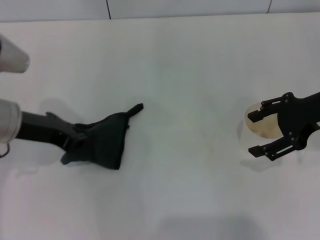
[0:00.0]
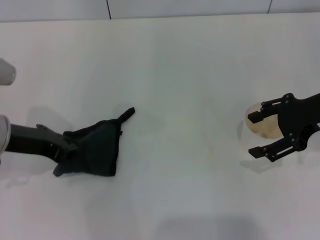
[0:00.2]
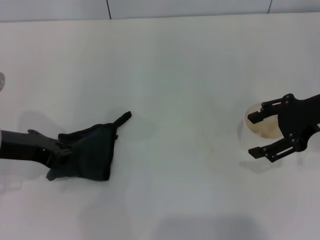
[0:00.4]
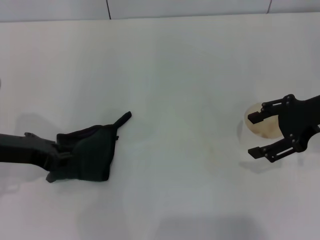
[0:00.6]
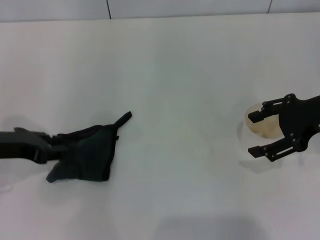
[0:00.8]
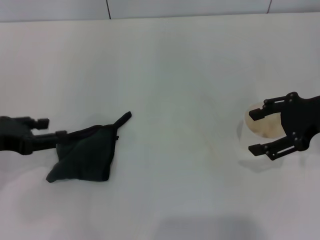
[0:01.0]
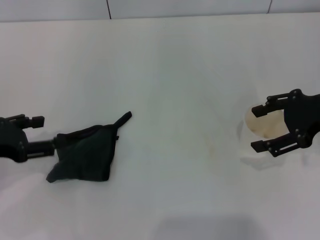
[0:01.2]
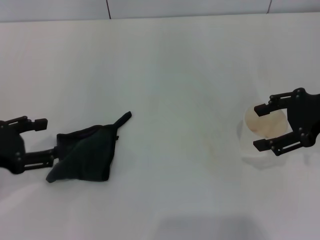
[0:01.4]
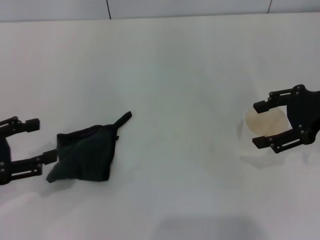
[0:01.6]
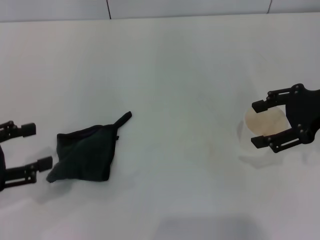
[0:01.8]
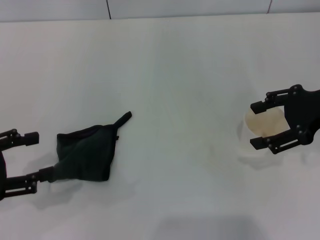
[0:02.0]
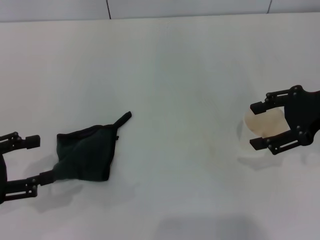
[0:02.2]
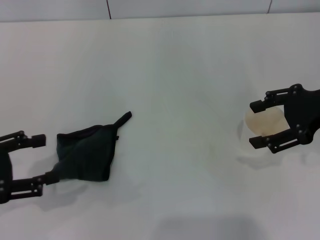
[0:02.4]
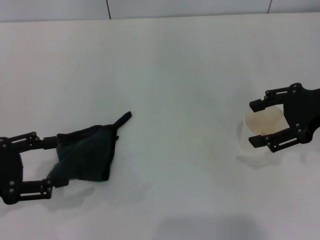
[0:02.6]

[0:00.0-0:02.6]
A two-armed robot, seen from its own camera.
Step, 0:00.2 to 0:01.0: Place the rag on the table with the left gripper.
0:00.0 to 0:01.2: The left gripper moves to the left and backward, some 10 cm, and opens up.

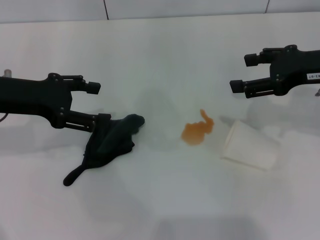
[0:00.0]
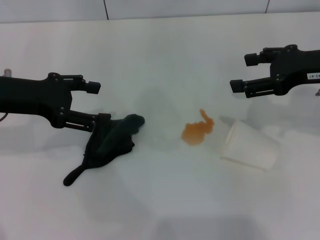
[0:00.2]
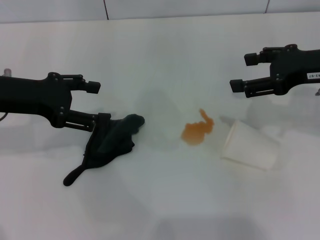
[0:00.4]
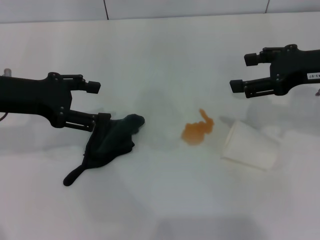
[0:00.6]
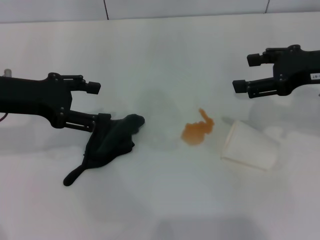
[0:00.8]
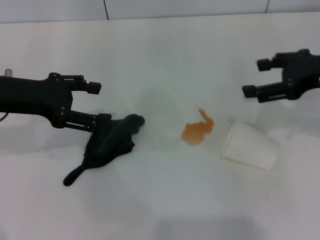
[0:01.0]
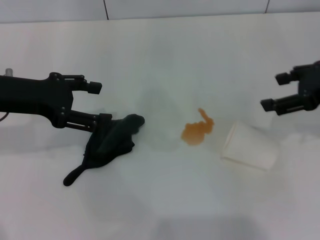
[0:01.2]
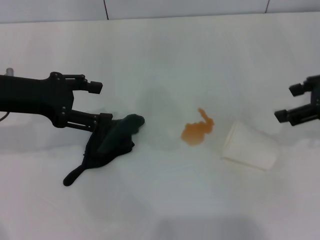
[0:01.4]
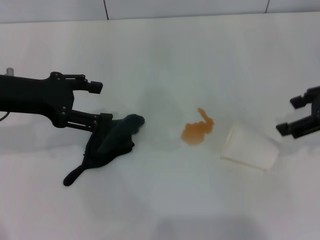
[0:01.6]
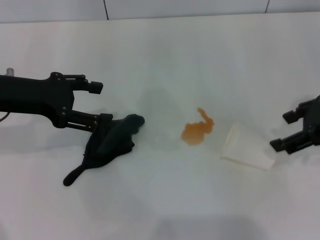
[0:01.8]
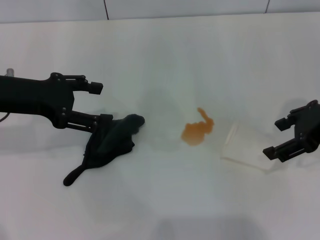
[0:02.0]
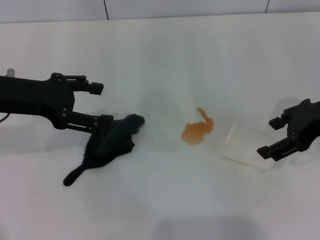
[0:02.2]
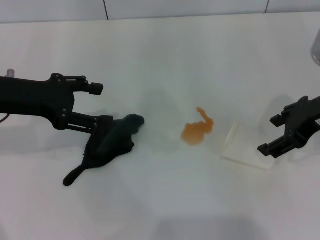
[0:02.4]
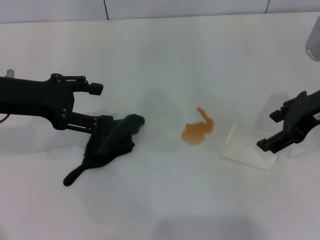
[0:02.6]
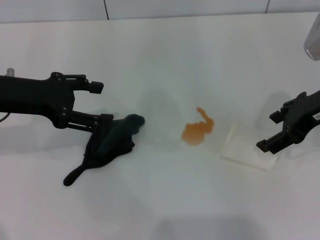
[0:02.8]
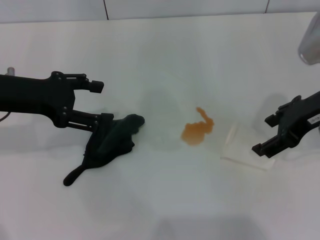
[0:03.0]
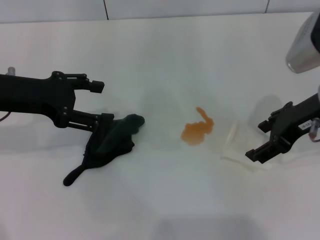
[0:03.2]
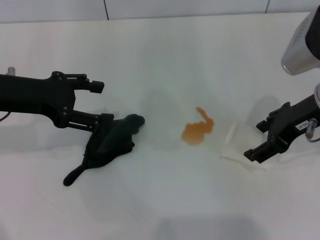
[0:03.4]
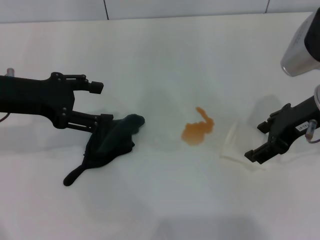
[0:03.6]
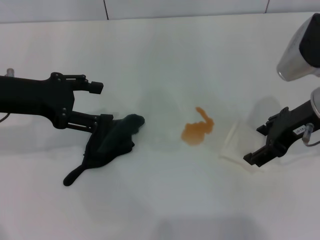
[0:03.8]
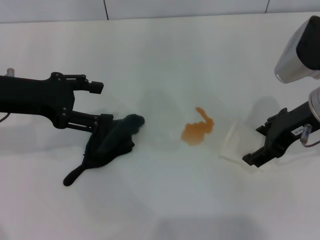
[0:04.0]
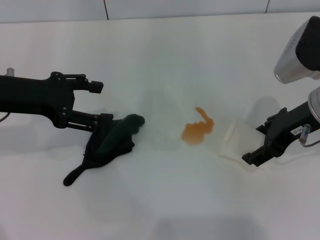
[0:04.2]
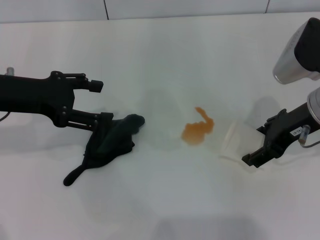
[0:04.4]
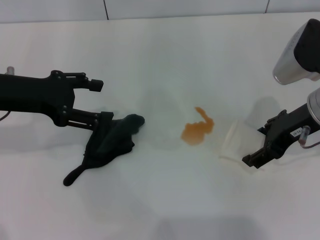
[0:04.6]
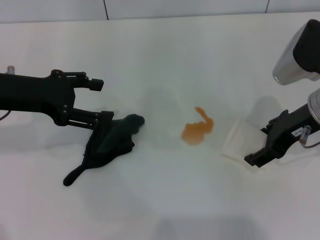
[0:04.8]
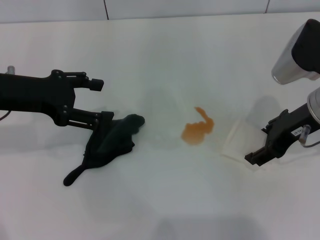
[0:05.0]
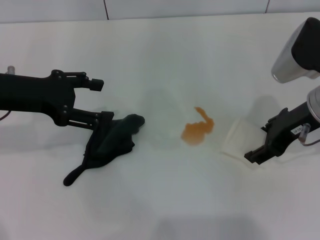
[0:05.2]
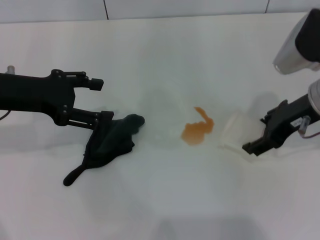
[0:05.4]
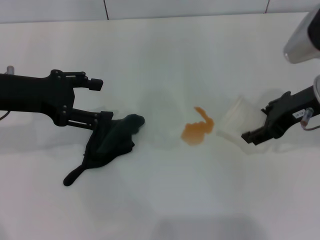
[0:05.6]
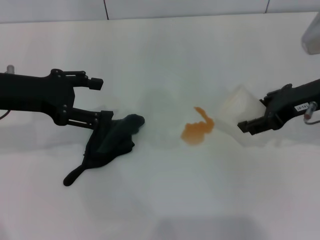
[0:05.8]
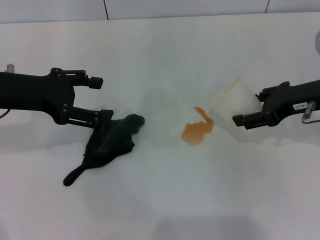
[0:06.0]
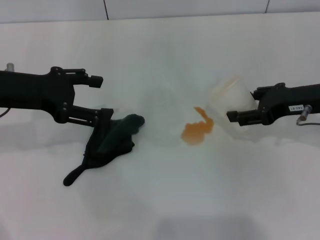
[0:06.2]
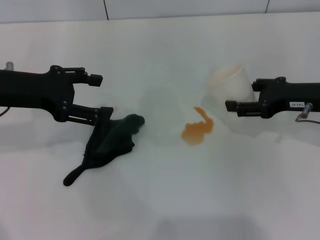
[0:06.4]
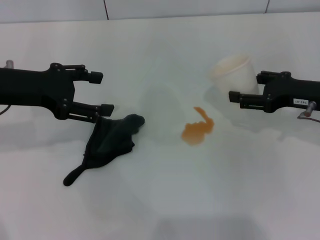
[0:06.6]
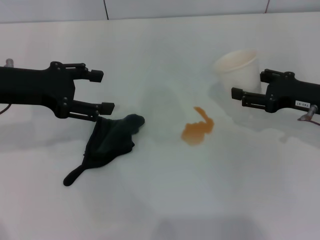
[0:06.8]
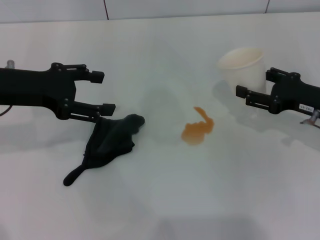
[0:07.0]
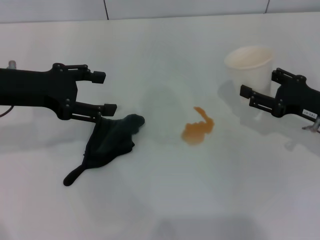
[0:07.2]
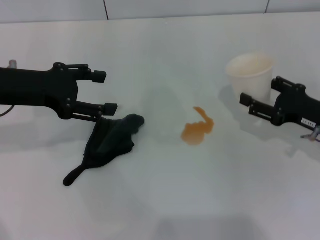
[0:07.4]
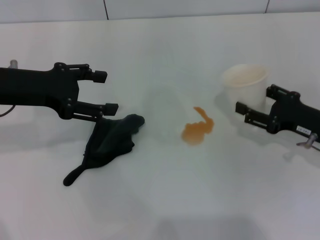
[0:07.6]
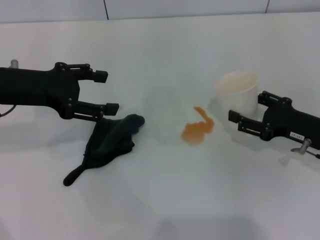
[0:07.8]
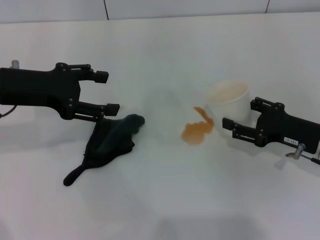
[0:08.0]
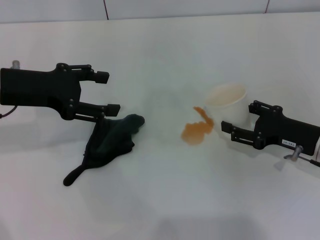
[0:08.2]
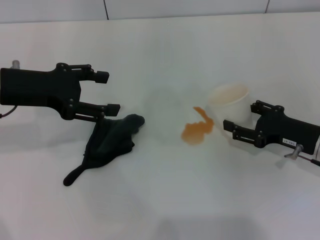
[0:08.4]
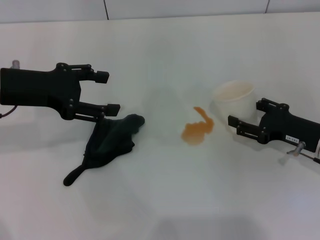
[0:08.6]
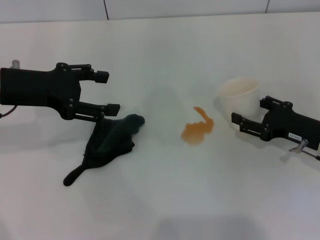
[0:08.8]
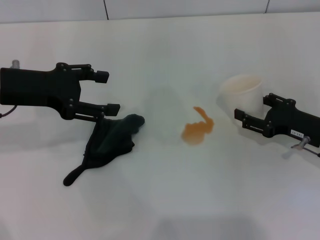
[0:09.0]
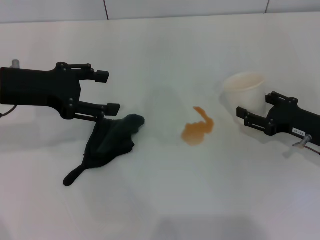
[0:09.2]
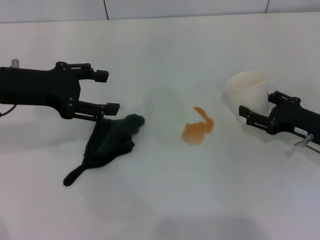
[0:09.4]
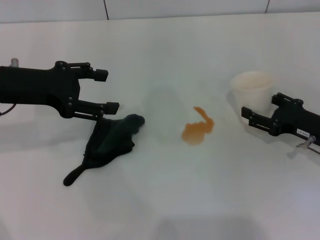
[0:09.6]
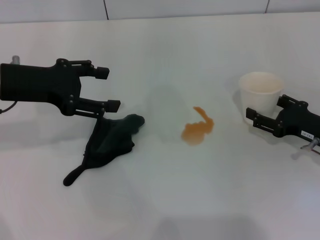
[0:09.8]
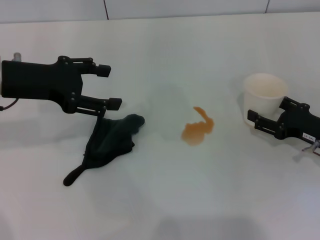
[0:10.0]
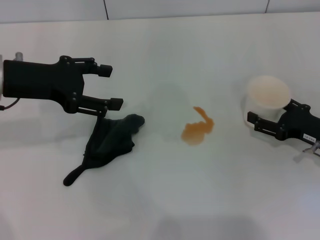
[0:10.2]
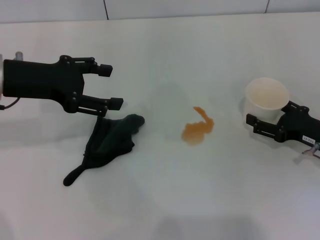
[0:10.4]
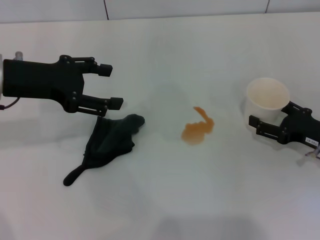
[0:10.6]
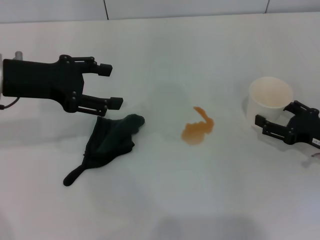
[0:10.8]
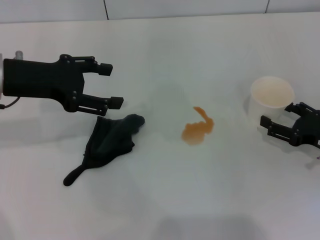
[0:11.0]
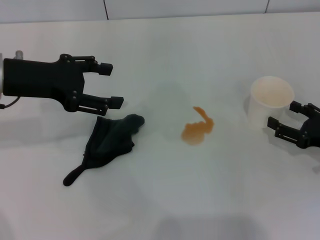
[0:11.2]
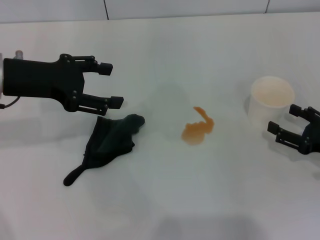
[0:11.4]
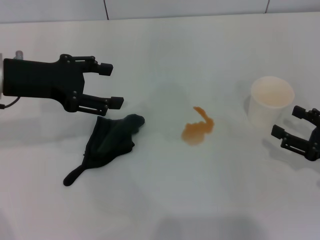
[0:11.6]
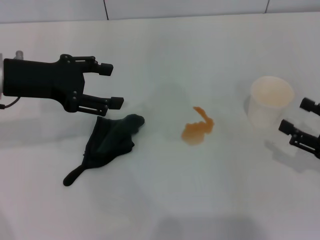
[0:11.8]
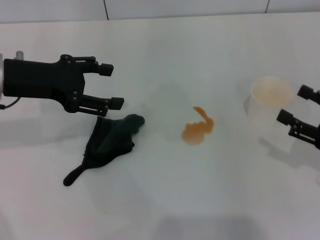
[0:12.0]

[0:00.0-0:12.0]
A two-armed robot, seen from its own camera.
Step, 0:00.0 to 0:05.0: Grasp the paper cup with the right gripper.
Step, 0:05.2 to 0:11.0: Stand the paper cup upright with the right gripper.
0:01.6 to 0:03.0: The right gripper is displaced to the left by some 5 cm.
0:03.0 to 0:04.4: The grippers move only a little.
0:06.0 to 0:07.6: The right gripper travels downward by roughly 10 cm.
0:07.6 to 0:10.4: The grippers move only a little.
0:10.4 to 0:12.0: The right gripper moves backward and upward, roughly 10 cm.

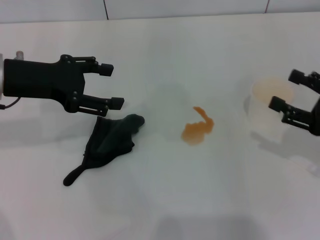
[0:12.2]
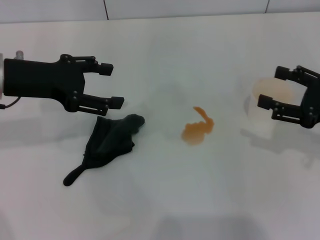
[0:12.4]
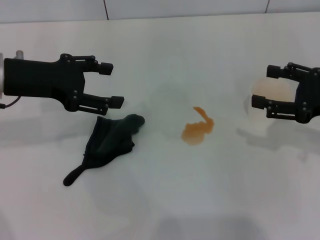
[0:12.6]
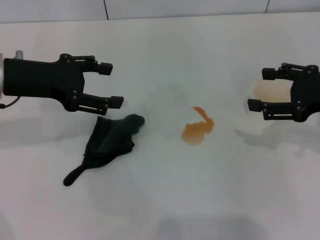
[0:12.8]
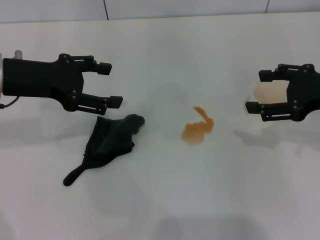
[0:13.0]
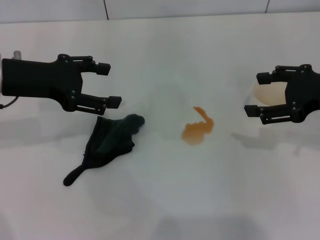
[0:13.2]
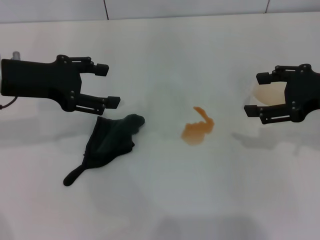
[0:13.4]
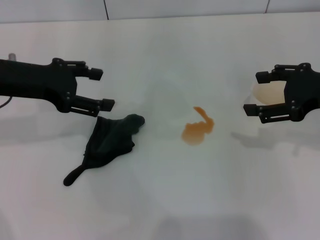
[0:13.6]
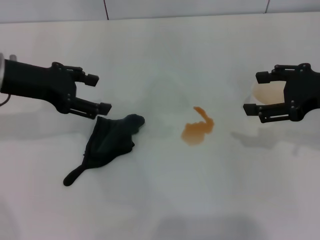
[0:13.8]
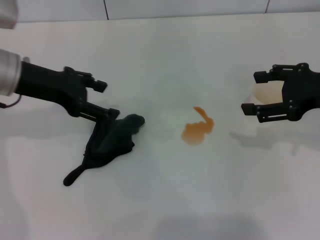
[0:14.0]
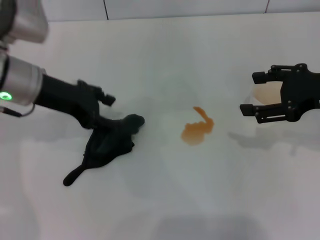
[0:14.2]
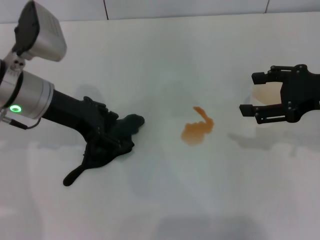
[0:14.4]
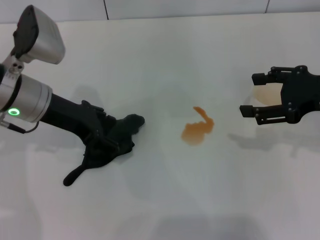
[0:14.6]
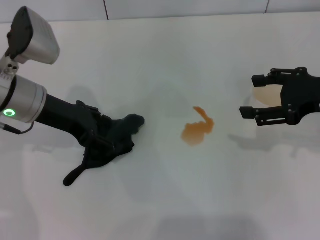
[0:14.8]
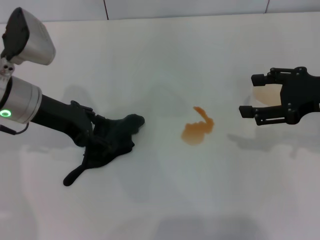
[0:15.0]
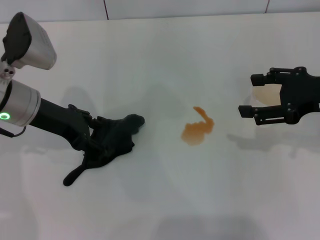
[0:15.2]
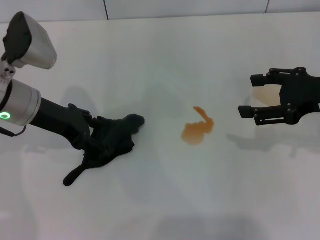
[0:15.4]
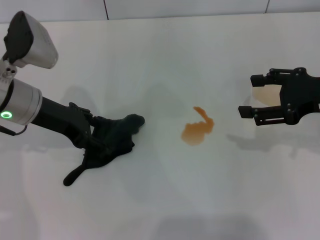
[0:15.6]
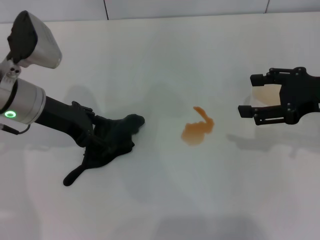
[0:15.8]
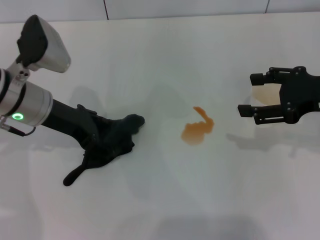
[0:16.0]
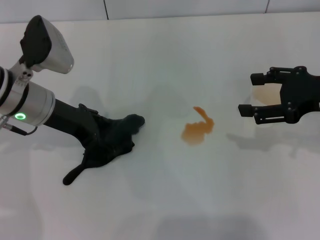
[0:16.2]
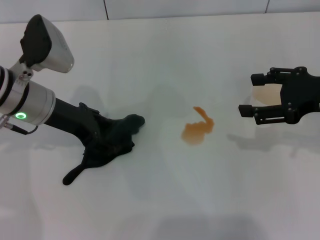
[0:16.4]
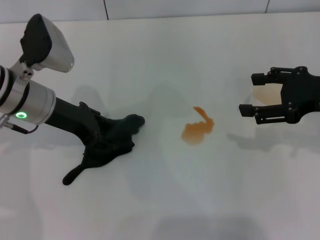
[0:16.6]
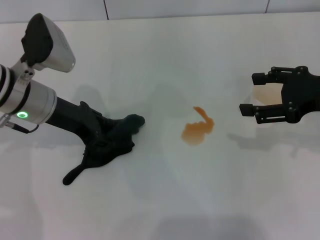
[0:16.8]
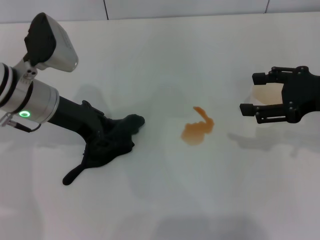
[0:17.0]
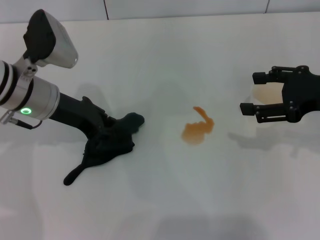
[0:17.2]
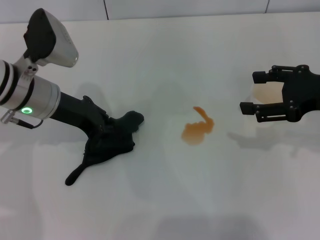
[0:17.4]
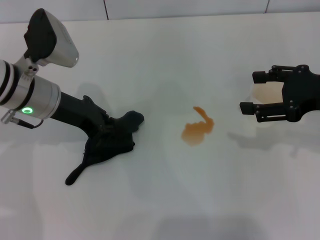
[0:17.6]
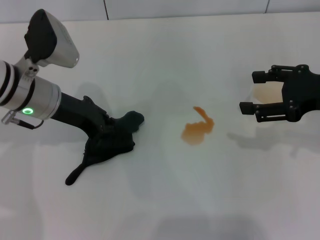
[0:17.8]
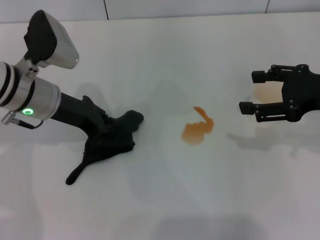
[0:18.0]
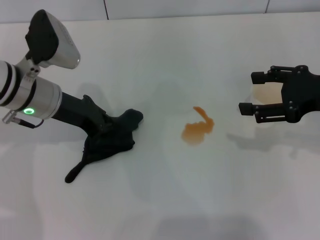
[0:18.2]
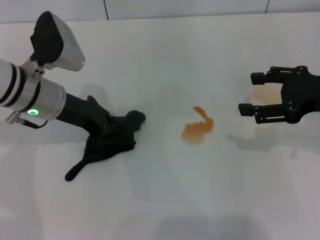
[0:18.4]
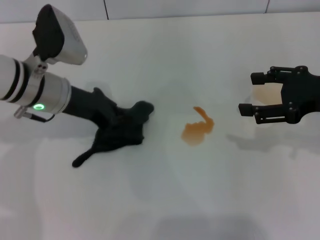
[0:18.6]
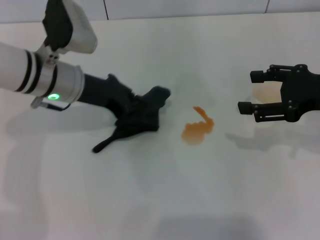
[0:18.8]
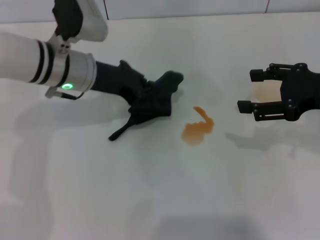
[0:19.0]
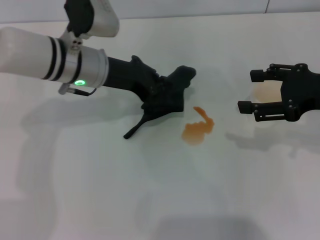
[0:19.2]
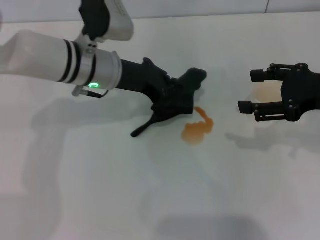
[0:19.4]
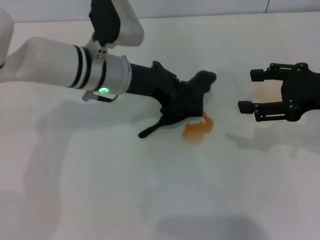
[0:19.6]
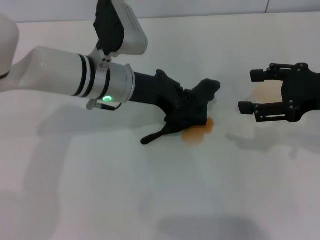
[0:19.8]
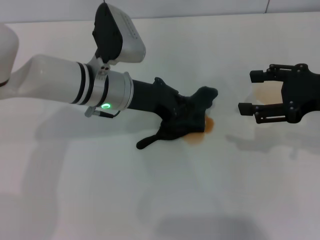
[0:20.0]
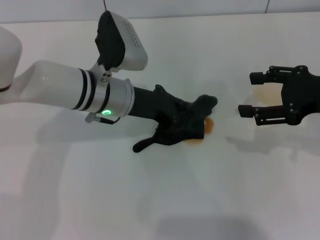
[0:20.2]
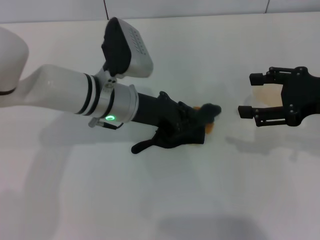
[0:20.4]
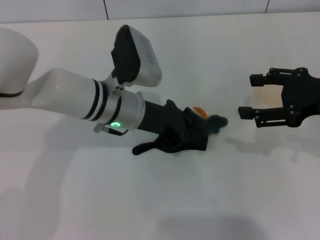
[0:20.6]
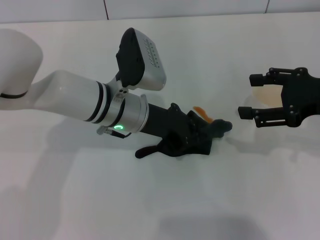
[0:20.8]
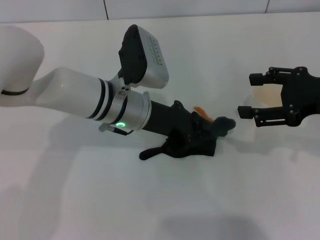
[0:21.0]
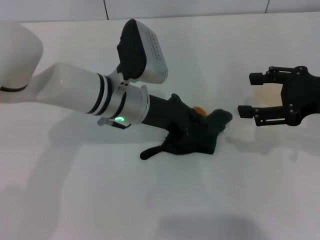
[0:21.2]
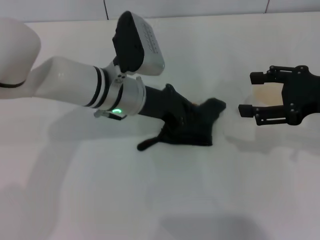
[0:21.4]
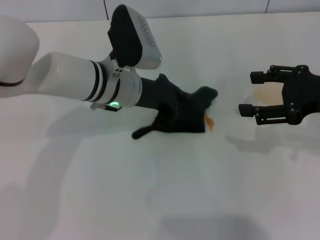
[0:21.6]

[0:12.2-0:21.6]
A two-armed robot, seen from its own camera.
Step, 0:12.2 to 0:18.0: Grasp the rag with the left gripper.
0:12.2 to 0:13.8: The right gripper travels upward and forward by about 10 cm.
0:13.8 to 0:15.4: The left gripper moves roughly 5 cm.
0:15.4 to 0:17.0: The grippers stay close to where they were, moving slightly.
0:17.0 to 0:18.4: The left gripper closes up.
0:18.4 to 0:20.0: The left gripper shifts approximately 10 cm to the right.
0:20.0 to 0:21.6: The grippers move only a little.
